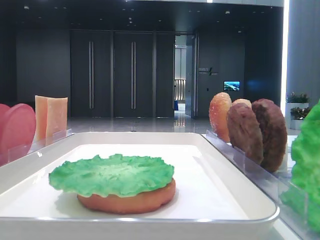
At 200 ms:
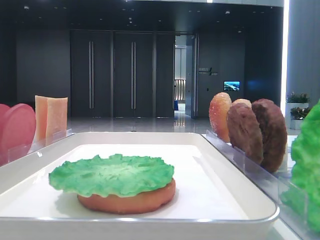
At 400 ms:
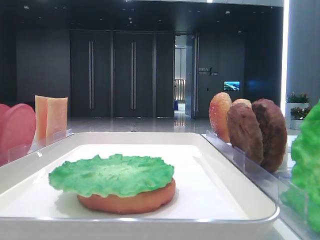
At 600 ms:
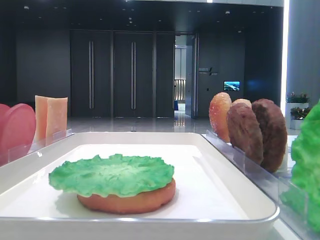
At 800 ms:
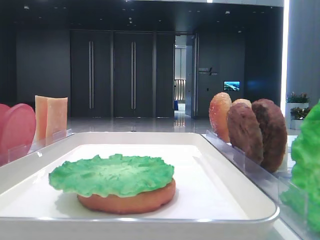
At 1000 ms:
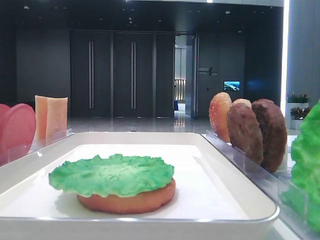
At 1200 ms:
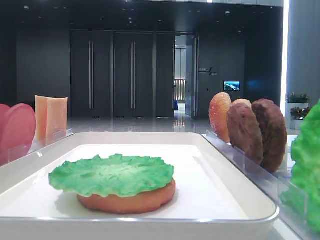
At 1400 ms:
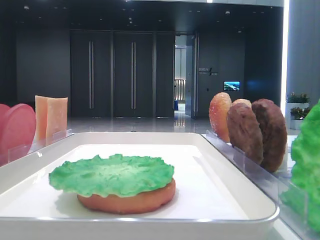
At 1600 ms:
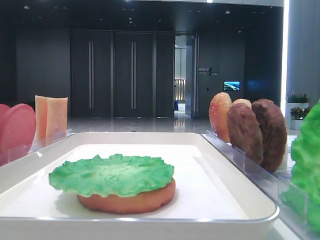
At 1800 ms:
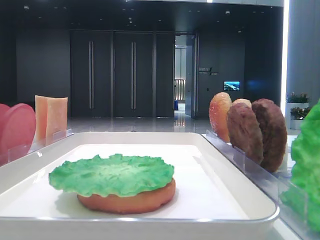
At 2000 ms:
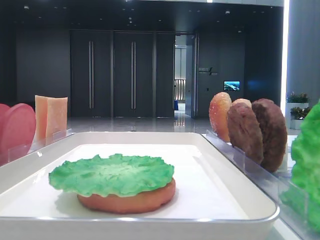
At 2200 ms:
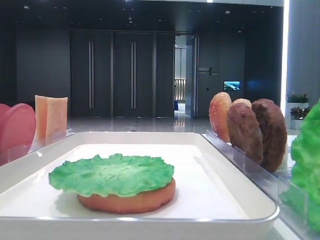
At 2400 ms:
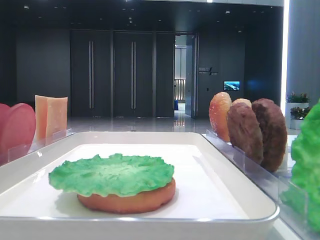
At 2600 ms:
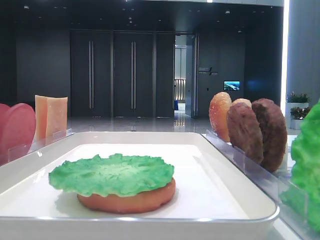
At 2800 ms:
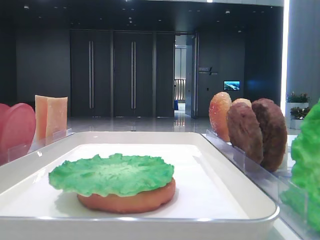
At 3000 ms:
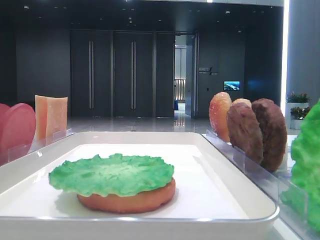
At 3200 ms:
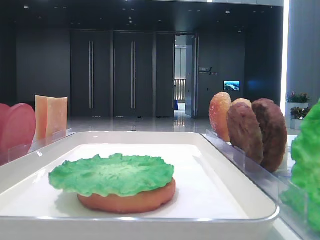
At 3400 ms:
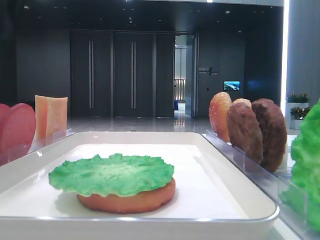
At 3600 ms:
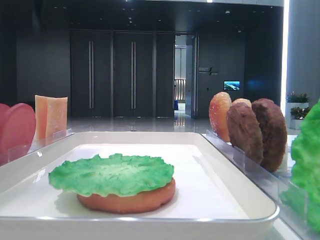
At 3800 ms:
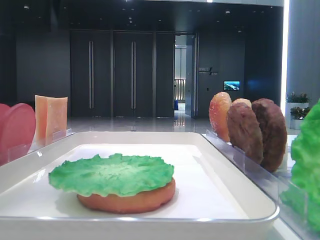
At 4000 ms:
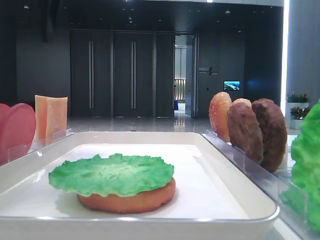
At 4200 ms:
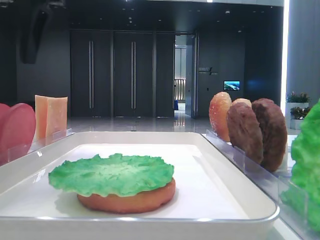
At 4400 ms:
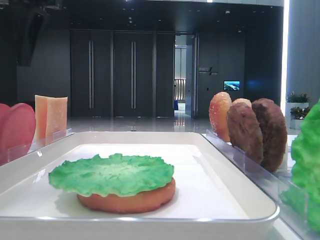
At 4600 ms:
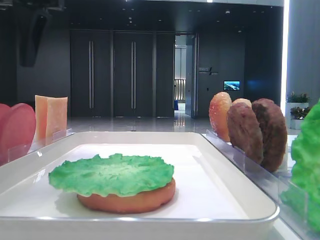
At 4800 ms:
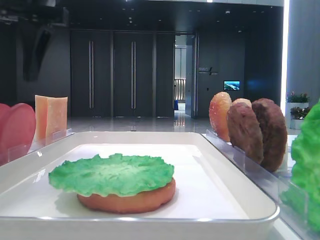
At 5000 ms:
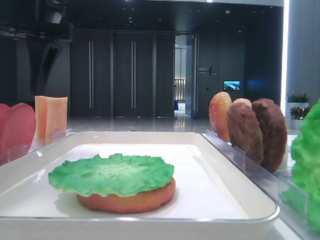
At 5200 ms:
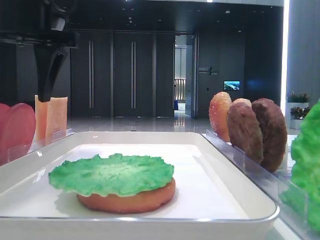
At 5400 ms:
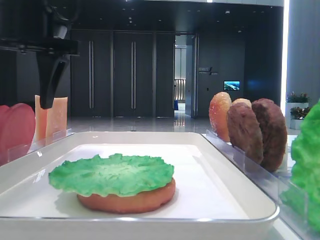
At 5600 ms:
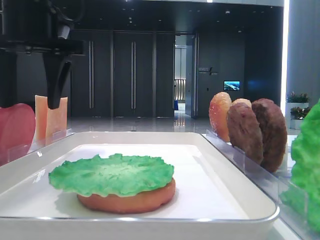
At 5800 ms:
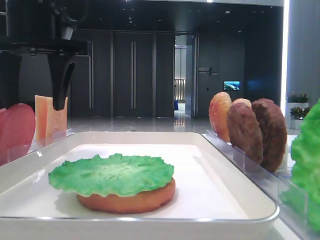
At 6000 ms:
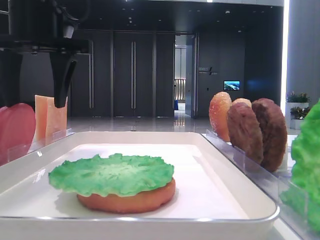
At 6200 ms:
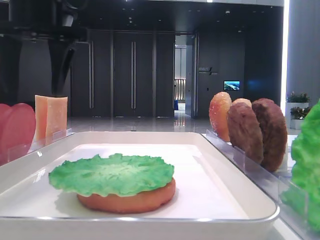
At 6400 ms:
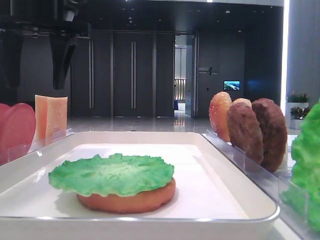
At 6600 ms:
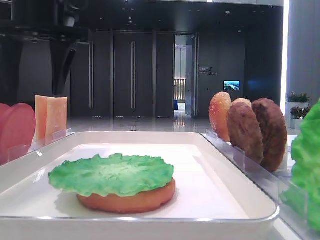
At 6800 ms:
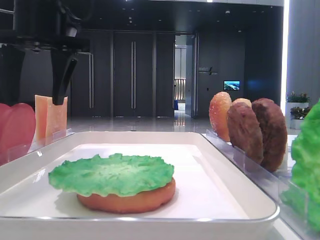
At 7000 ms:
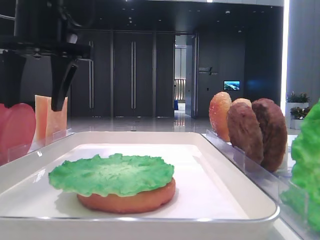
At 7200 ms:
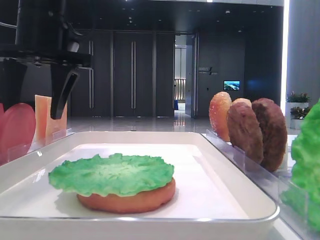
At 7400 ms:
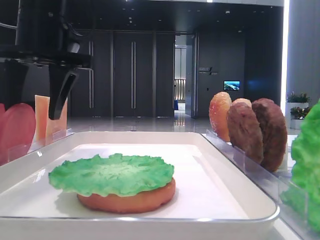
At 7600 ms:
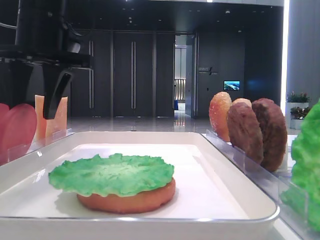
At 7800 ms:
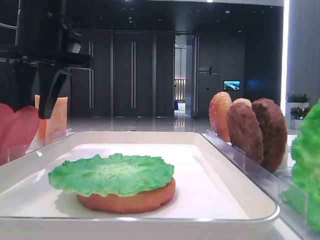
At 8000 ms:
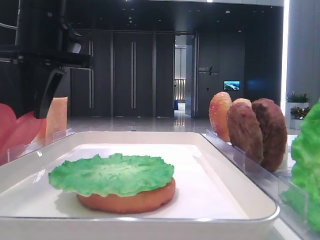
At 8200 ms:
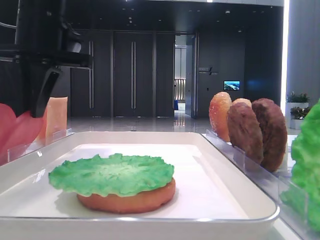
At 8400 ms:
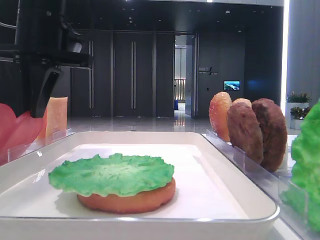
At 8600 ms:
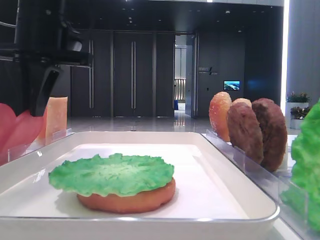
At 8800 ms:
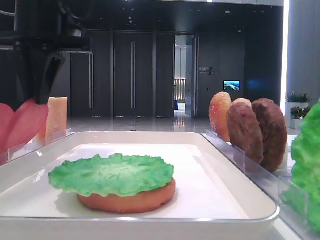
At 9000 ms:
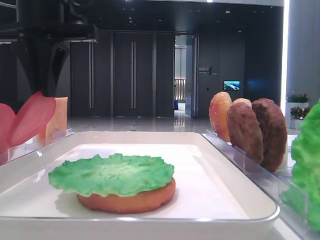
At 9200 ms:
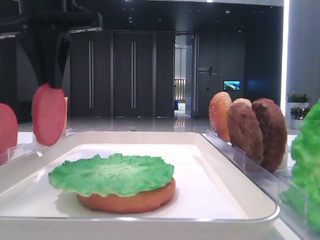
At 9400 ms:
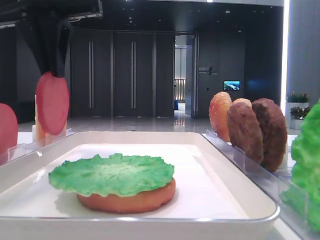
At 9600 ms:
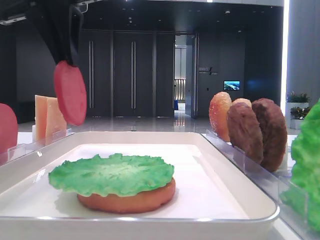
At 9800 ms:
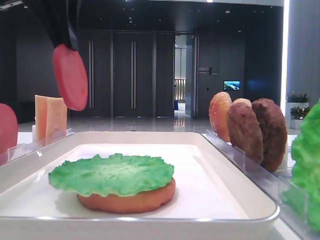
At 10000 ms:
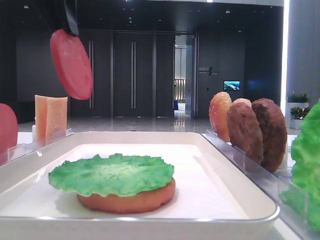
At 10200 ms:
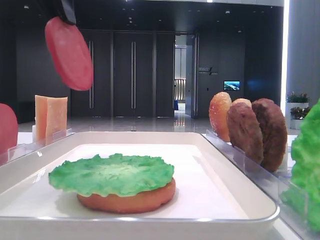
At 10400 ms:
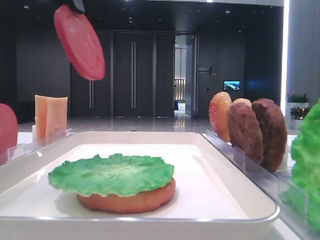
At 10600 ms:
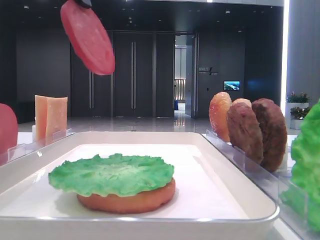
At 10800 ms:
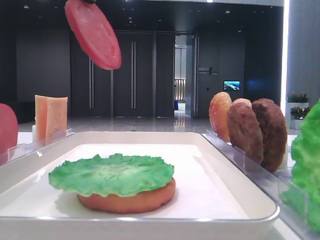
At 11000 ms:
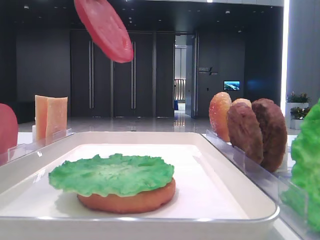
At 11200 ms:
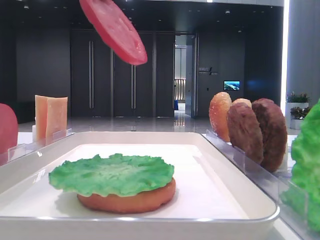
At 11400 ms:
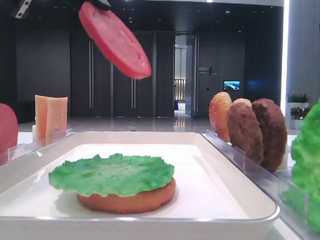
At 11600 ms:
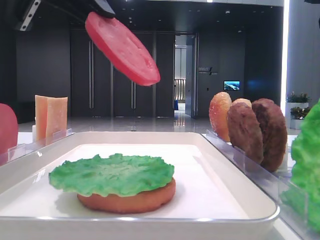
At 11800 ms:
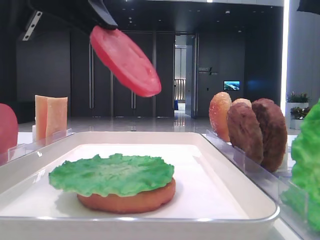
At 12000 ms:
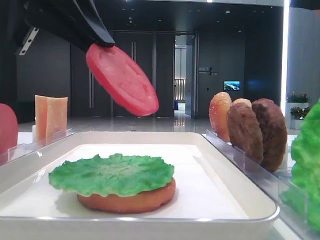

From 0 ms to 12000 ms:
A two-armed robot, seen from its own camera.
Step, from 0 ms to 8400 ms: Pick up the tomato slice with the left hand.
From 3000 ms to 4400 ms: The left gripper goes approximately 10 cm to the right.
From 4400 ms to 6000 ms: The left gripper travels downward by some 5 cm.
From 6000 ms to 7600 ms: The grippers stay close to where they were, moving slightly.
From 7600 ms to 9000 ms: The left gripper closes its fingers.
From 9000 ms to 10400 ms: The left gripper moves upward and backward, approximately 10 cm.
From 10400 ms to 12000 ms: The left gripper moves downward, about 10 cm.

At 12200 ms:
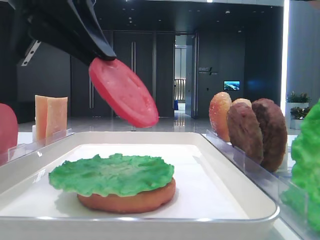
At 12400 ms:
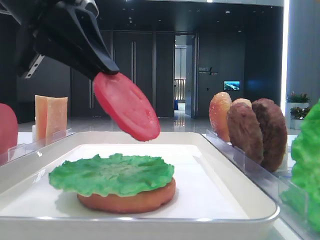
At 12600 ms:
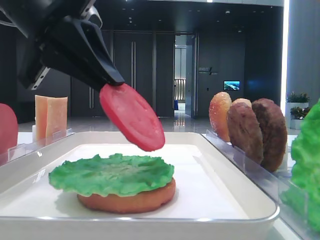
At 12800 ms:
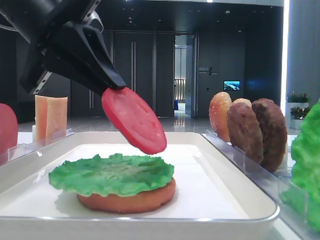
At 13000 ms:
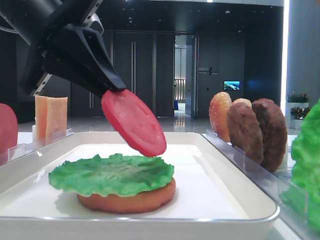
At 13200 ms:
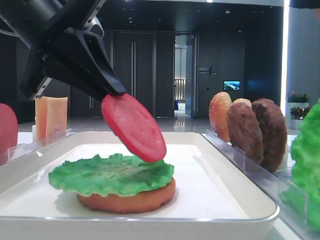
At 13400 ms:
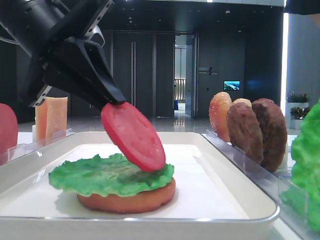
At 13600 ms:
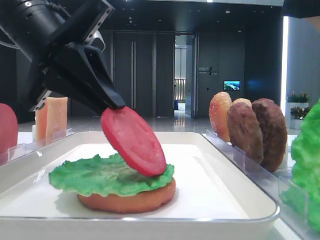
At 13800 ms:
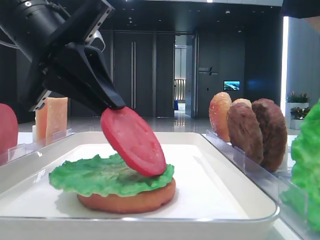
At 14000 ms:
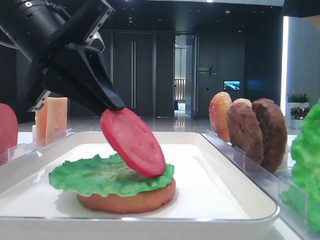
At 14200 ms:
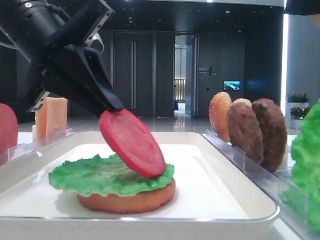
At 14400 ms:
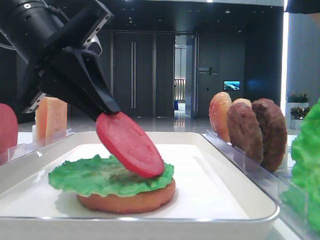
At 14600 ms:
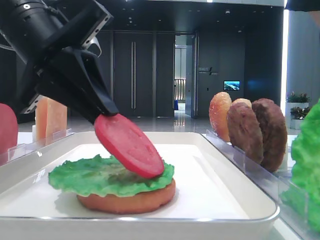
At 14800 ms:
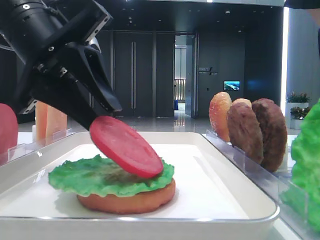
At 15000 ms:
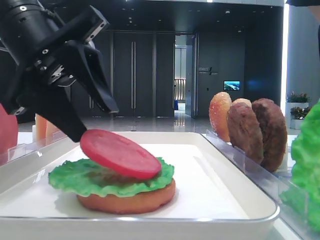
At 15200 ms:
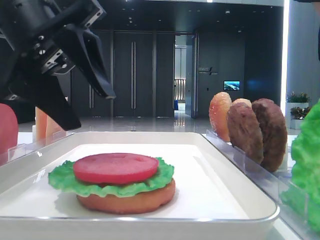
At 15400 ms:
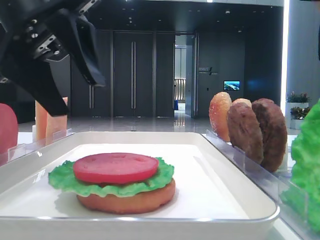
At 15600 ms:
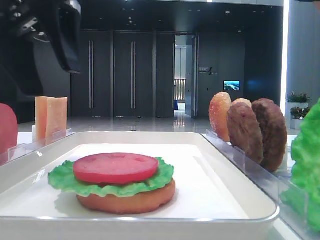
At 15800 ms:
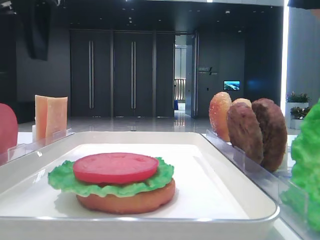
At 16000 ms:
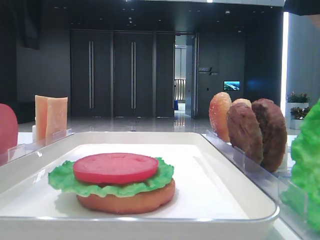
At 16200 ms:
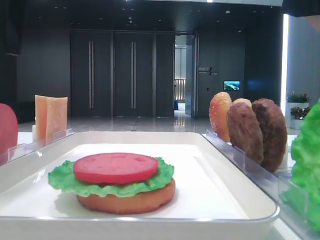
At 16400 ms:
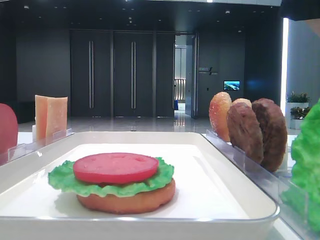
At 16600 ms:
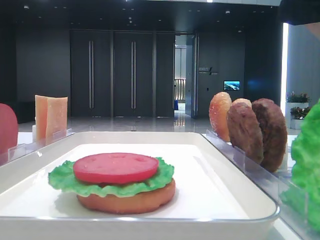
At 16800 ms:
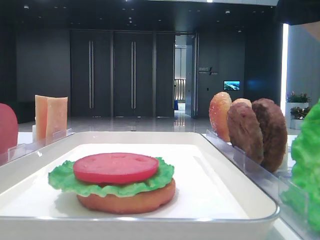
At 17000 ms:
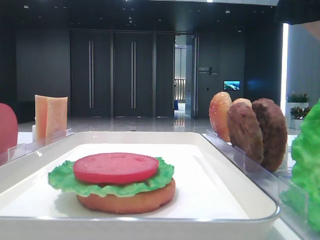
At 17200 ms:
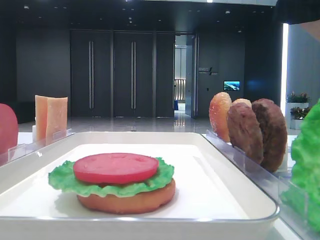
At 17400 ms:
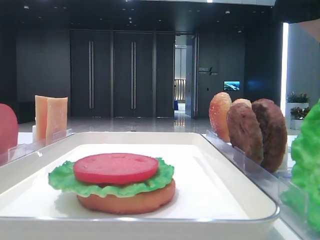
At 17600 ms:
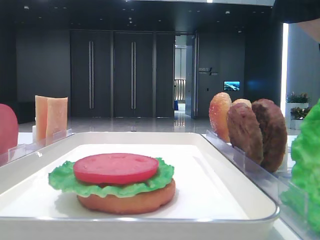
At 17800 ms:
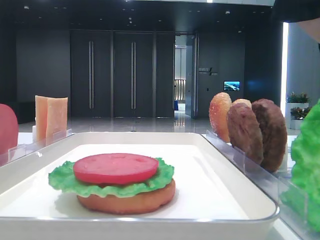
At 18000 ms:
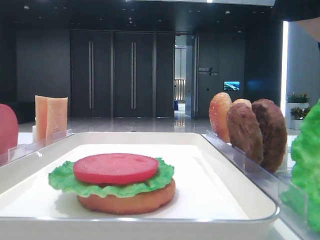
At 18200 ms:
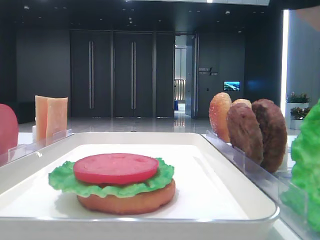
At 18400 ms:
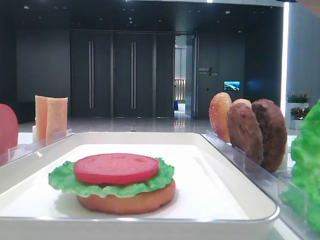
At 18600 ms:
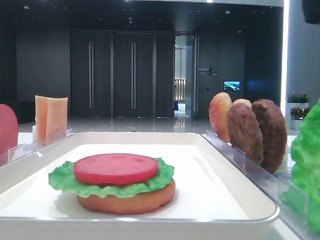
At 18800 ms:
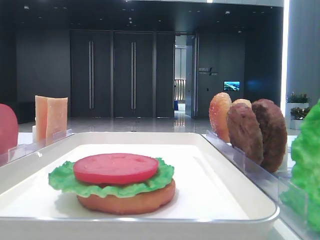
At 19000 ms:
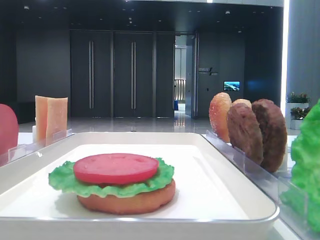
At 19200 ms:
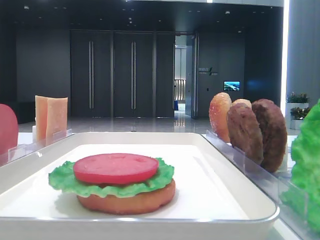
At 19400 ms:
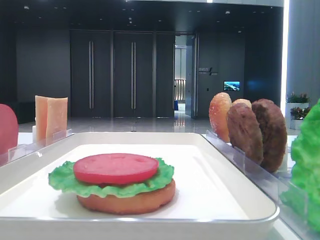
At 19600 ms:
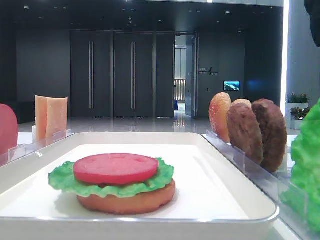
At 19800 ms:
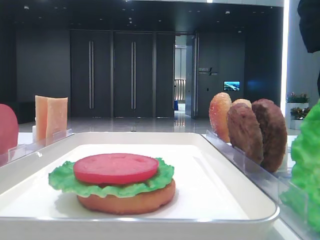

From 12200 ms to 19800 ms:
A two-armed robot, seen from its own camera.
Step, from 12200 ms to 15000 ms: Place the tomato slice on the lettuce leaf with the left hand.
From 12200 ms to 13800 ms: The left gripper ends up roughly 5 cm from where it was.
From 13800 ms to 15200 ms: The left gripper opens its fingers.
From 15200 ms to 16800 ms: The left gripper shifts about 20 cm to the left and upward.
